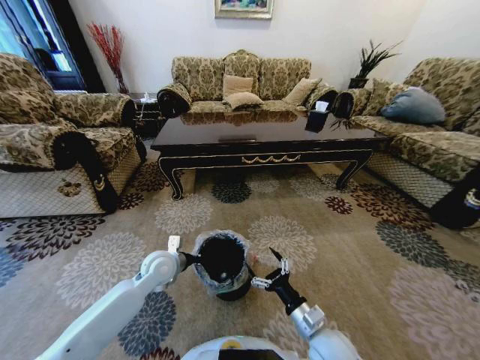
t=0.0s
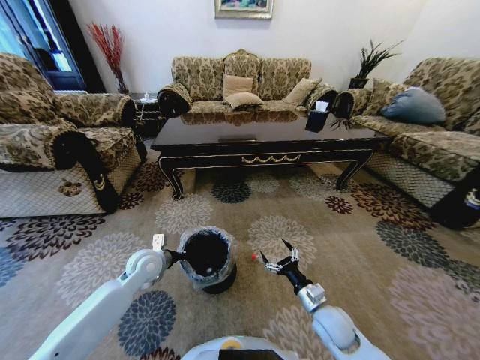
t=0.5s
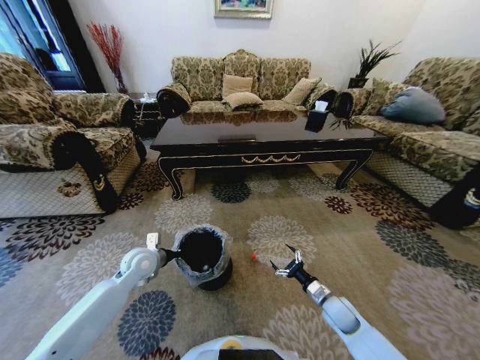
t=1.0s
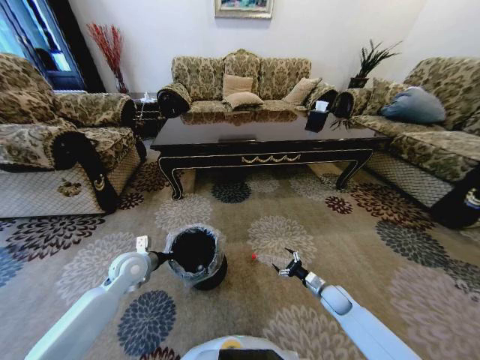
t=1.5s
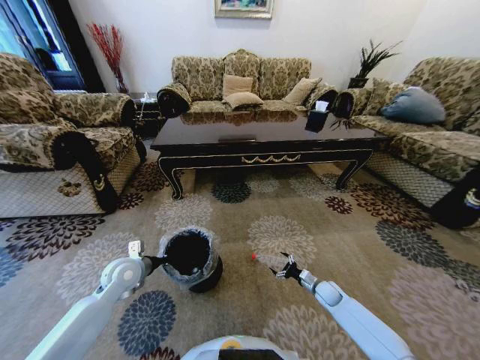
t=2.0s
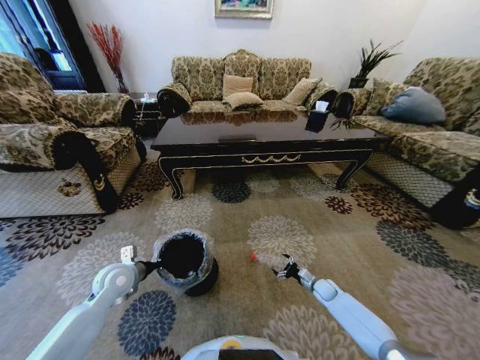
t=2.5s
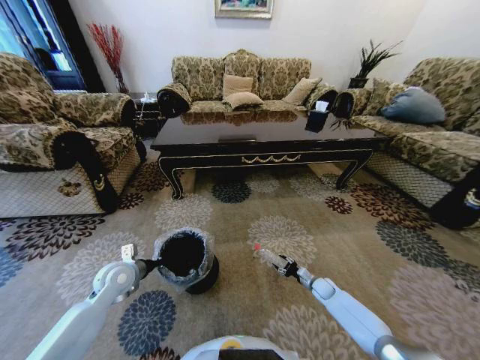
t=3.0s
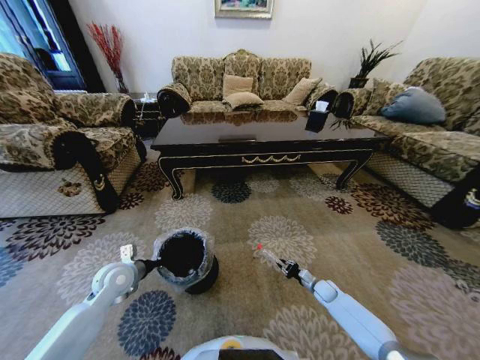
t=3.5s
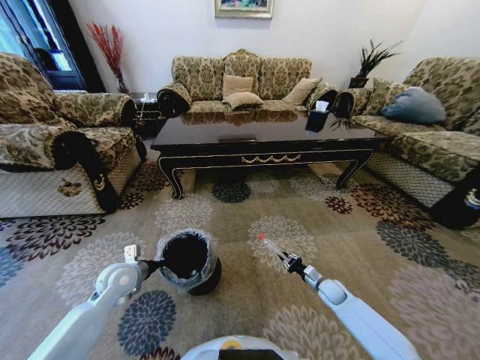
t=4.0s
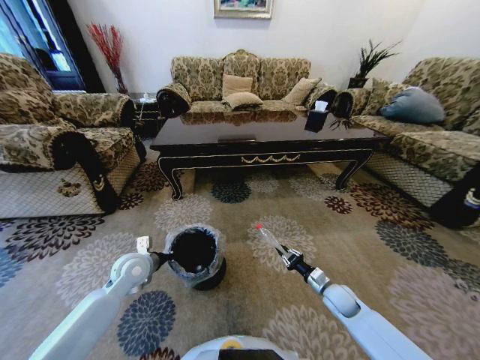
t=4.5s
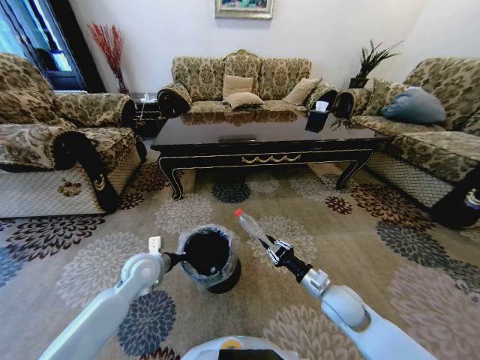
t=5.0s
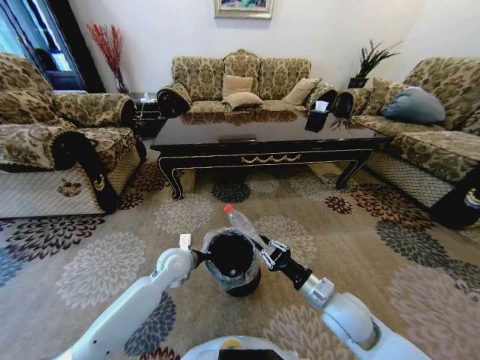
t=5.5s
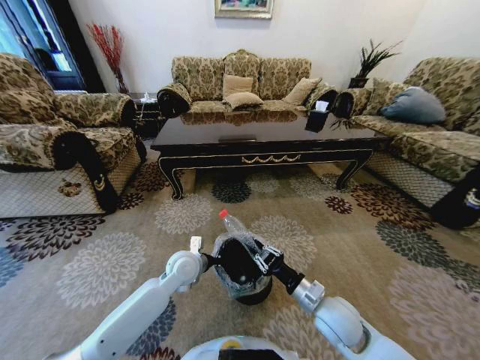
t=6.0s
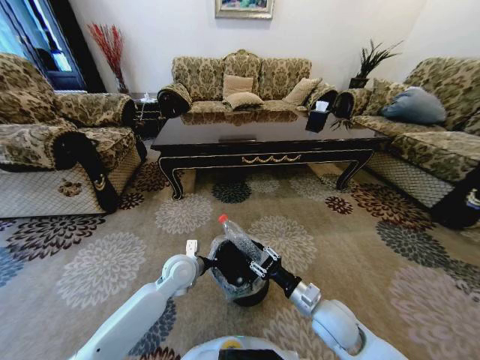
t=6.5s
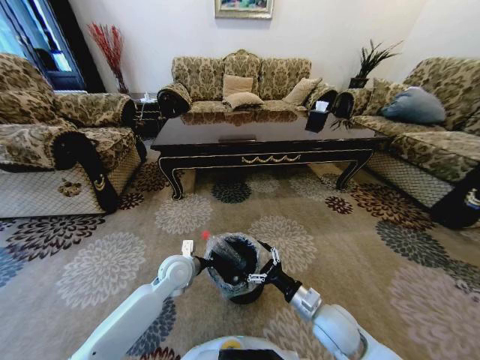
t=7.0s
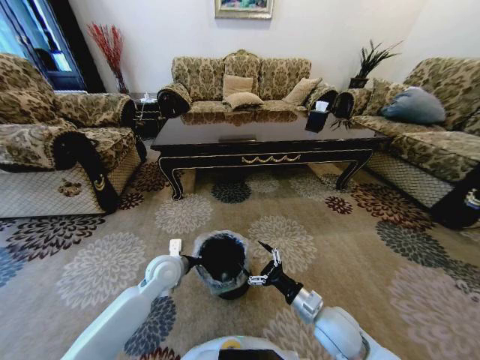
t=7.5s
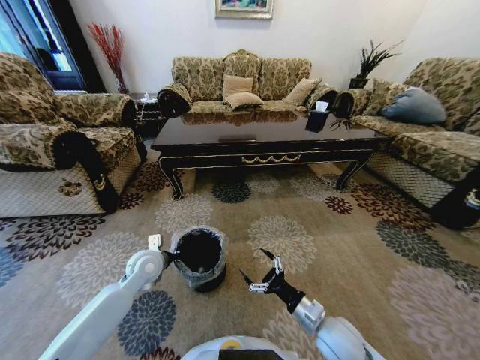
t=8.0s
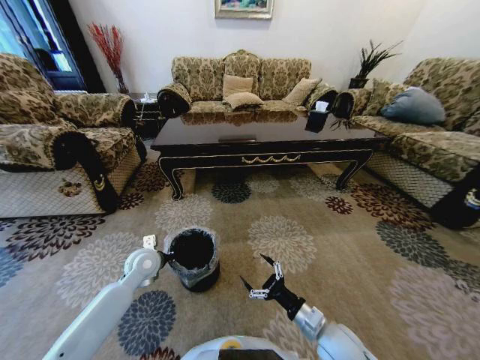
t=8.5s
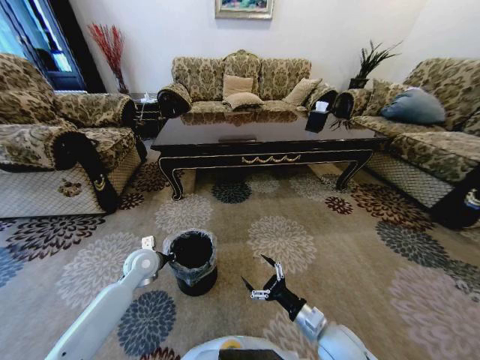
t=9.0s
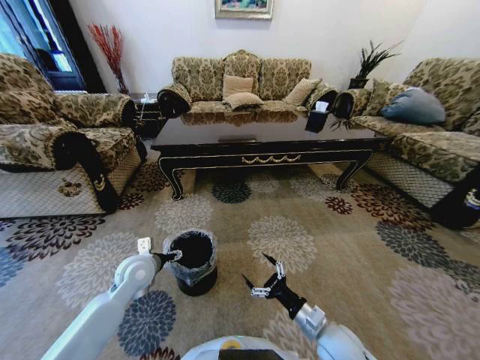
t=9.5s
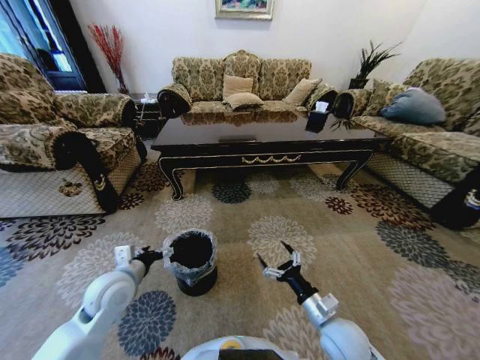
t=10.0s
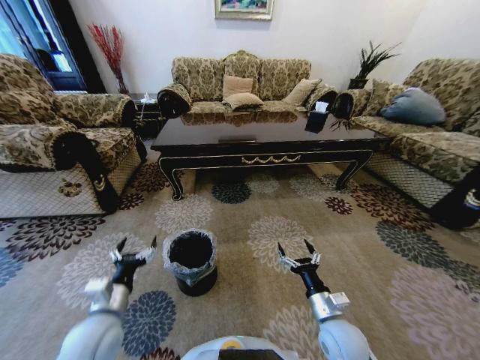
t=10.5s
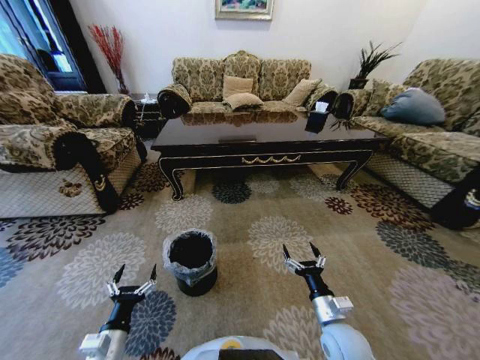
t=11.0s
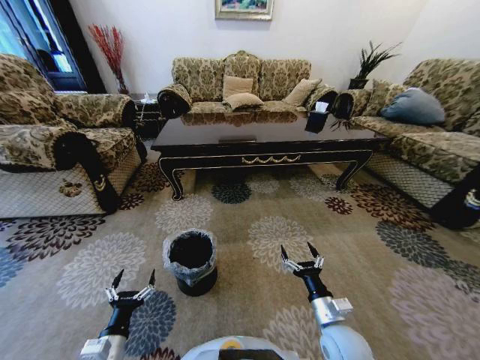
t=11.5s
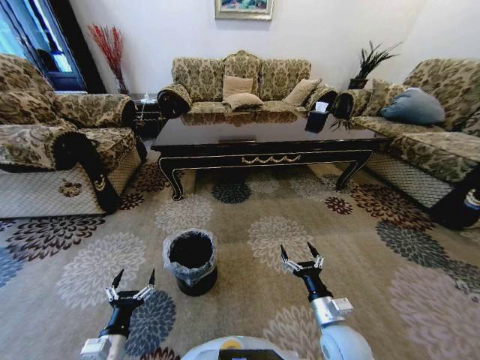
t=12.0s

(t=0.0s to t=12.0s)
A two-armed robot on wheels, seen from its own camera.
Task of the whole recording: Move to the front of the table and pick up the trash from the floor, then place it into the trash bin.
t=0.0s - t=2.0s: The right gripper moves downward, forward and to the right, roughly 30 cm, while the left gripper goes roughly 10 cm to the left.
t=2.0s - t=4.0s: The right gripper closes up.
t=4.0s - t=6.0s: The right gripper travels upward, to the left and backward by about 30 cm; the left gripper moves to the right, about 20 cm.
t=6.0s - t=8.0s: The left gripper heads to the left, covering approximately 10 cm; the right gripper opens its fingers.
t=8.0s - t=10.0s: The left gripper travels backward by some 10 cm, and opens.
t=10.0s - t=12.0s: The left gripper is displaced backward and downward by about 20 cm.
